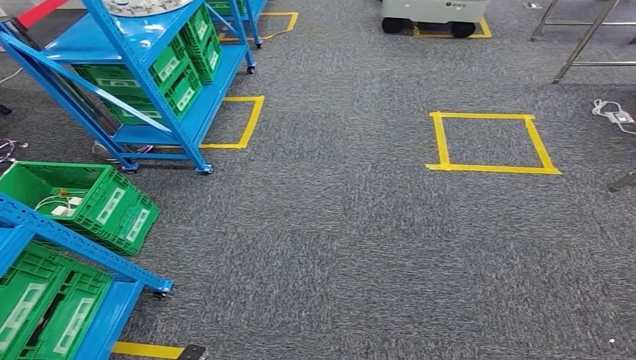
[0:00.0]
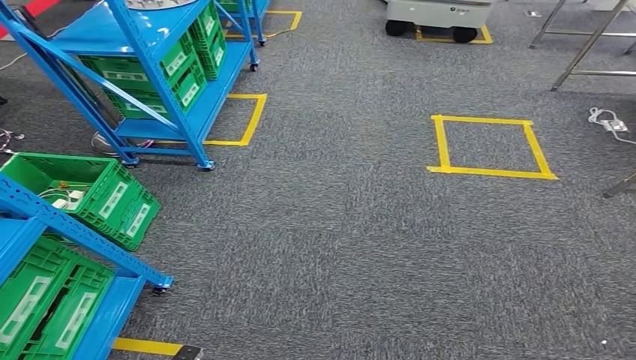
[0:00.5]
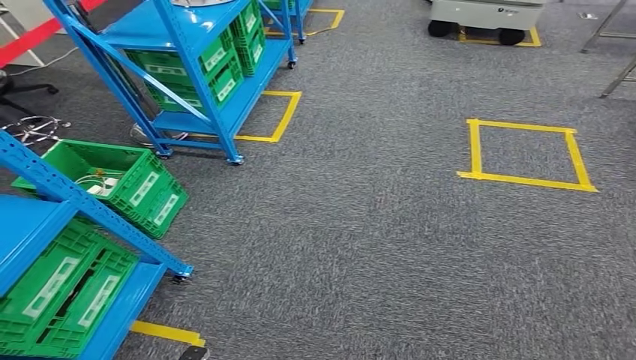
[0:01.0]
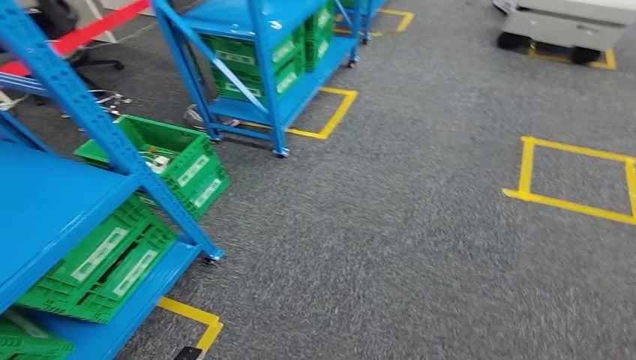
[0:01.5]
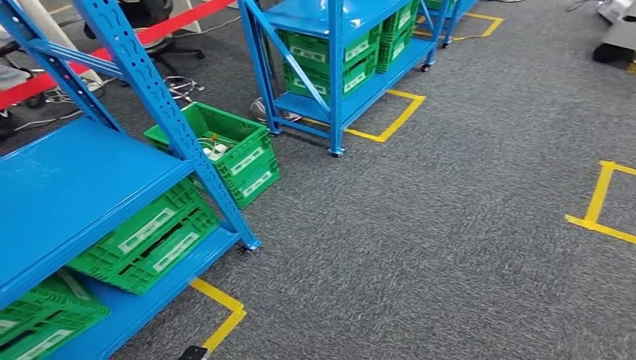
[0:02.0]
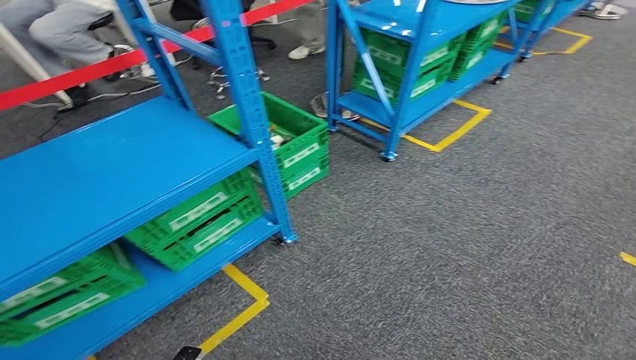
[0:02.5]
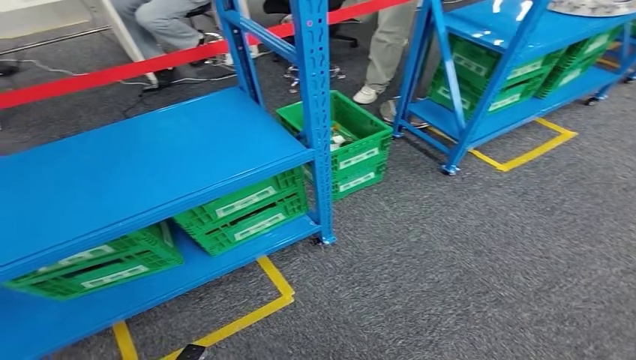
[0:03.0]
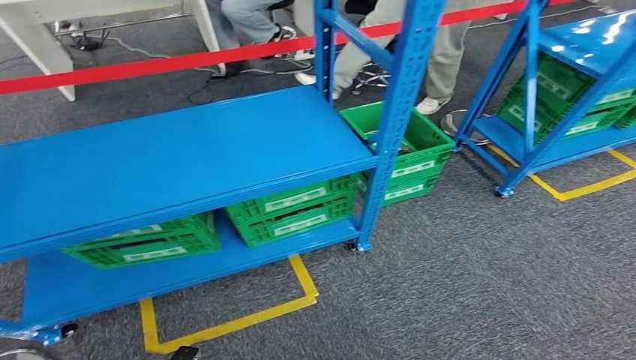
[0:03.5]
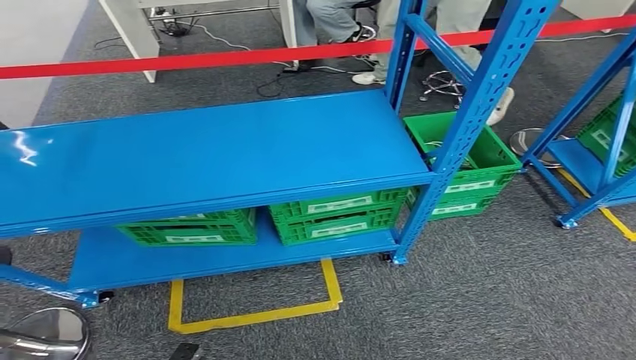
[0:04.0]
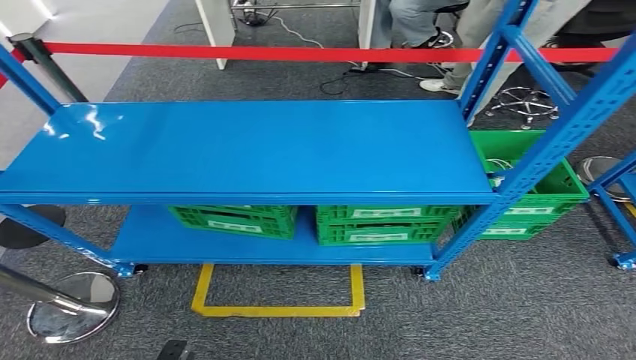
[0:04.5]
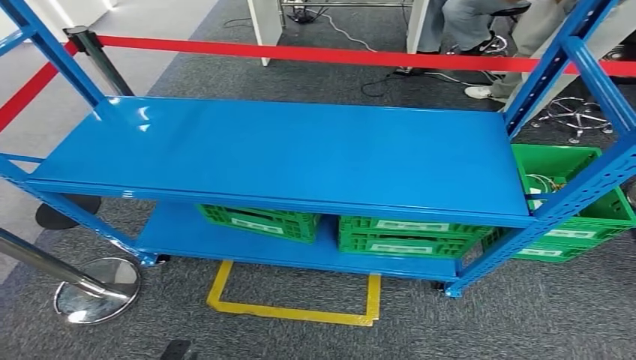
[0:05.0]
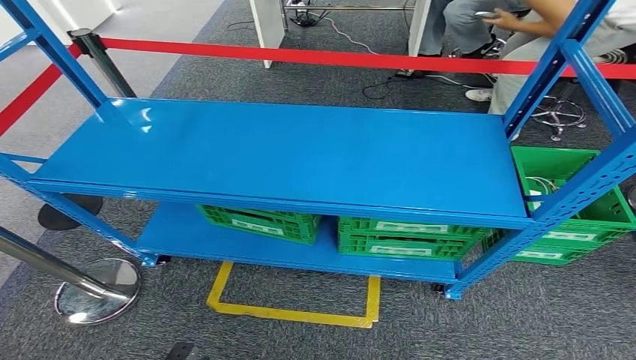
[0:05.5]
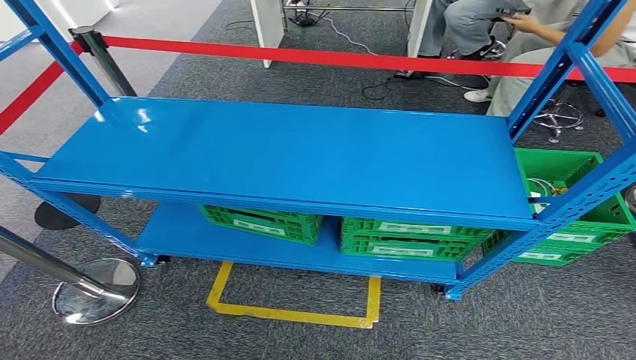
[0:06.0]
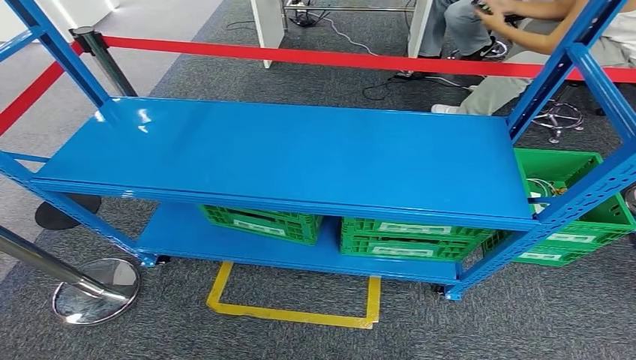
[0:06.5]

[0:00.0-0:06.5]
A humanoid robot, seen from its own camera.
Step, 0:00.0 to 0:06.5: Return to the initial position at the workbench.
